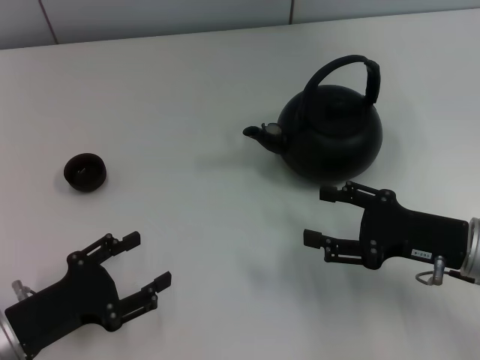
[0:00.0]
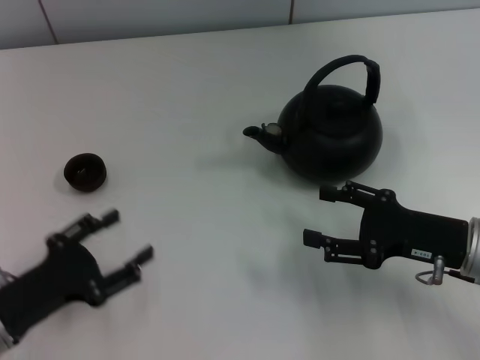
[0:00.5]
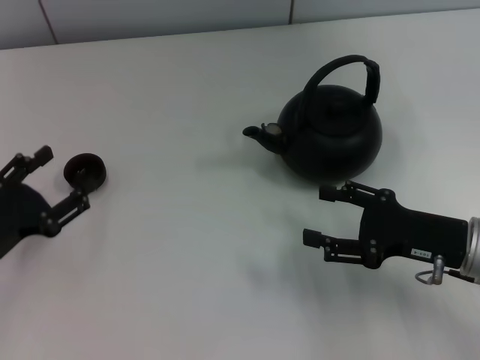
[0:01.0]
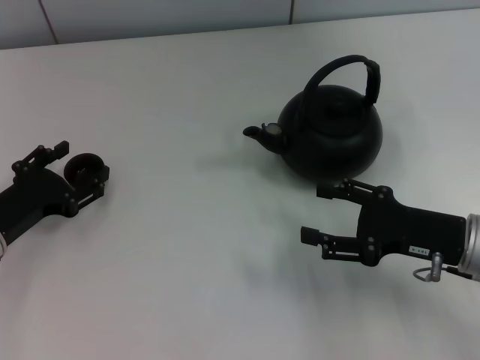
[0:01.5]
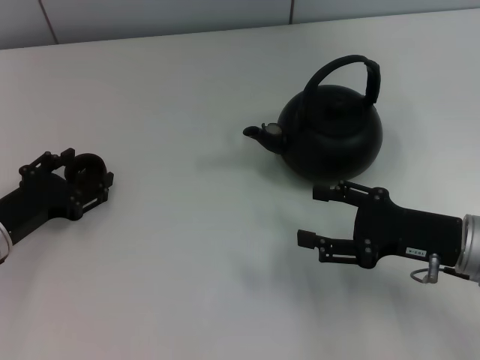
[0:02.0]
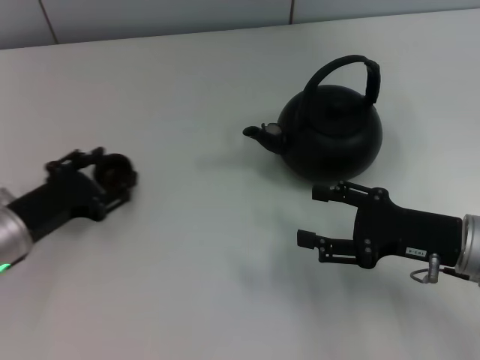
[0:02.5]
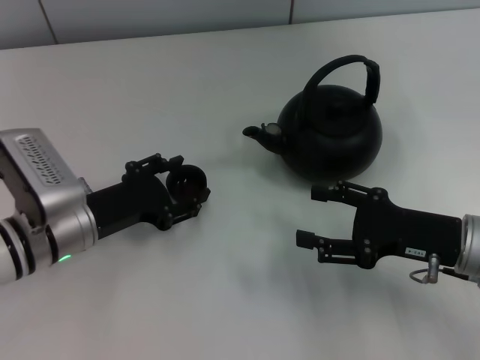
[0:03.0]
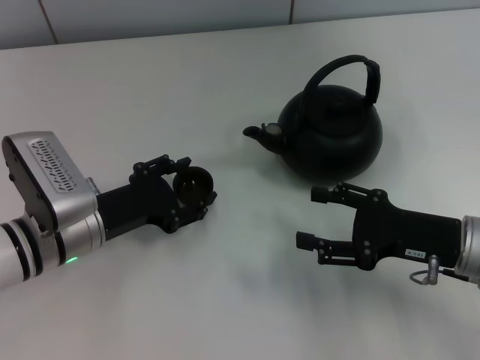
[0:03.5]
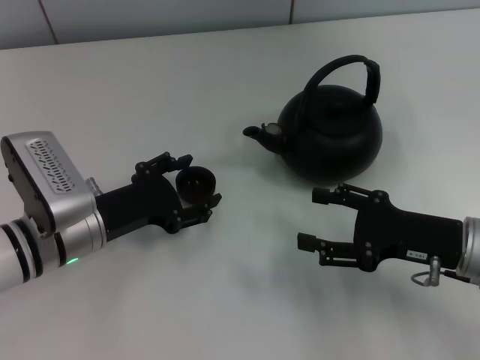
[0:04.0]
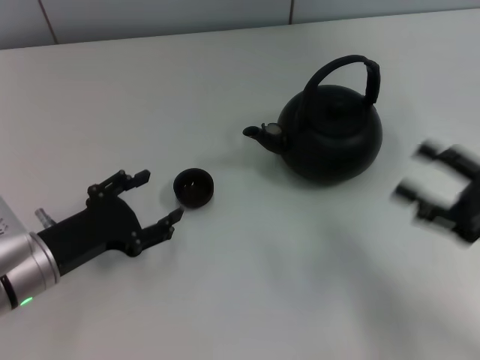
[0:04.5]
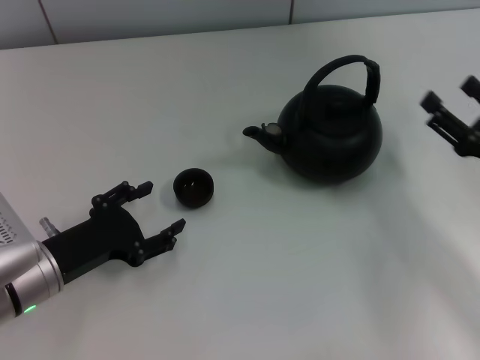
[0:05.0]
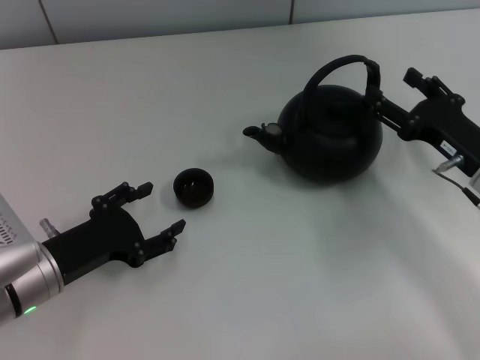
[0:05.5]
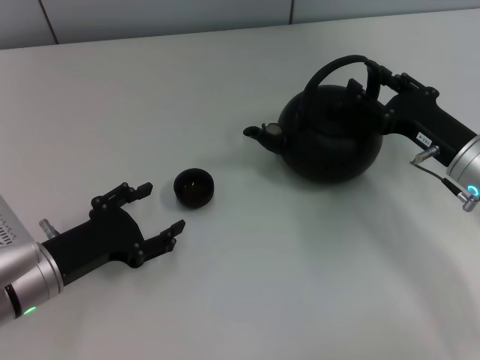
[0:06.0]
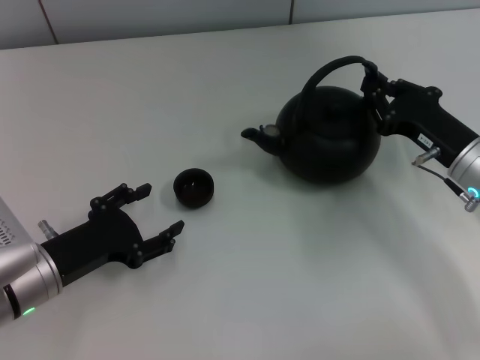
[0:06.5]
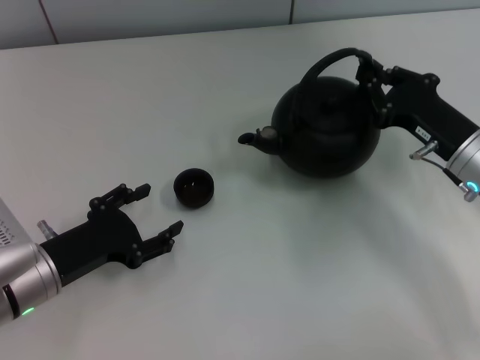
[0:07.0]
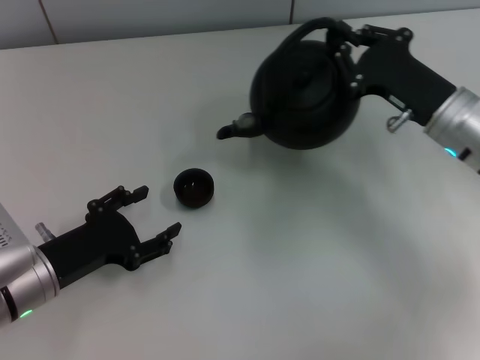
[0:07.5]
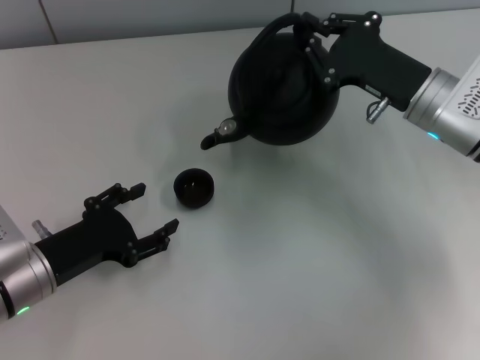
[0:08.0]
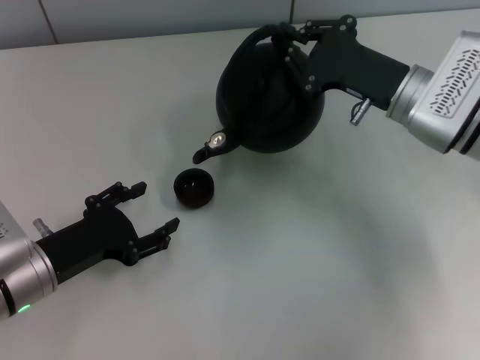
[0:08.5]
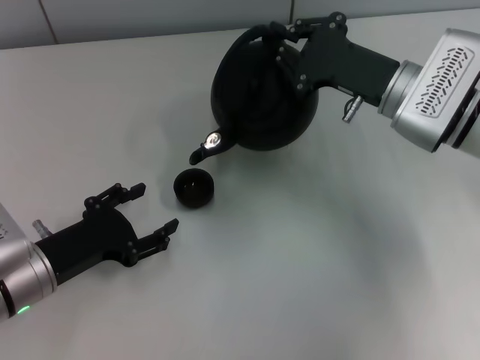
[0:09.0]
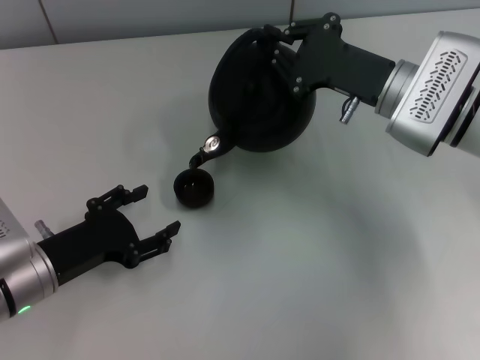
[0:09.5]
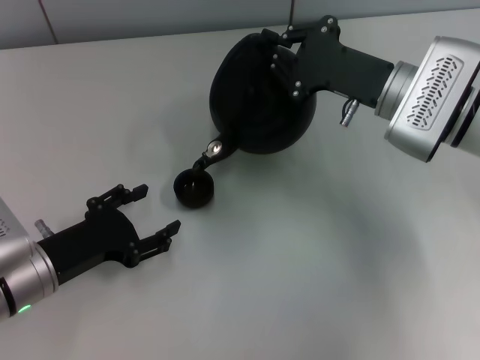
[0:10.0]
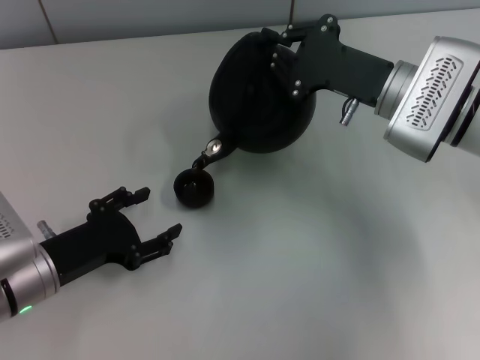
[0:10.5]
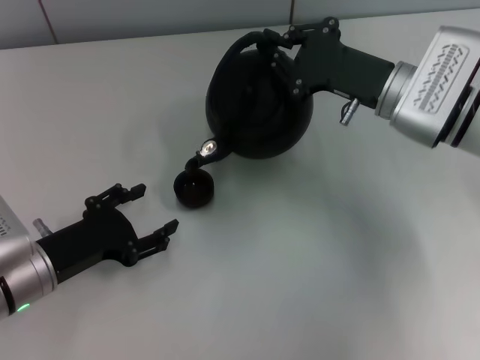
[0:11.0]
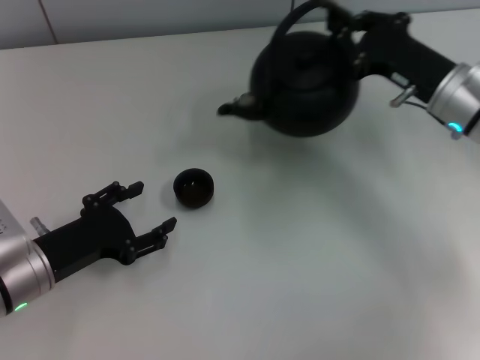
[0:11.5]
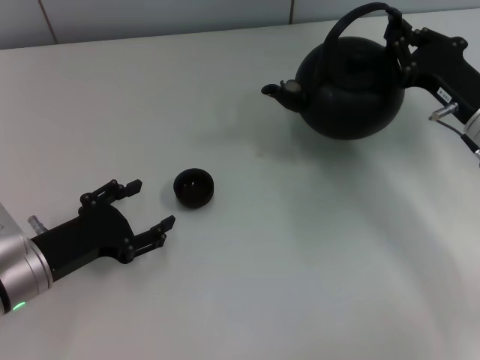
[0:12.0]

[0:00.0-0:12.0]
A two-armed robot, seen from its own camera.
Task of the whole recording: Grasp the handle of the teapot with one hand and pour tea into the teacup.
Step, 0:00.0 to 0:03.5: Pick up the teacup with the left gripper.
Step, 0:04.5 to 0:07.5: Pick up the teapot with the right gripper.
0:00.0 to 0:02.0: The left gripper goes approximately 10 cm forward.
0:02.0 to 0:04.0: The left gripper goes about 10 cm to the right.
0:04.0 to 0:06.0: The left gripper moves roughly 5 cm. The right gripper moves forward, roughly 5 cm.
0:06.0 to 0:08.0: The right gripper moves upward, about 5 cm, and closes its fingers.
0:08.0 to 0:10.0: The grippers stay close to where they were, moving slightly.
0:10.0 to 0:12.0: The right gripper heads to the right, covering some 10 cm.

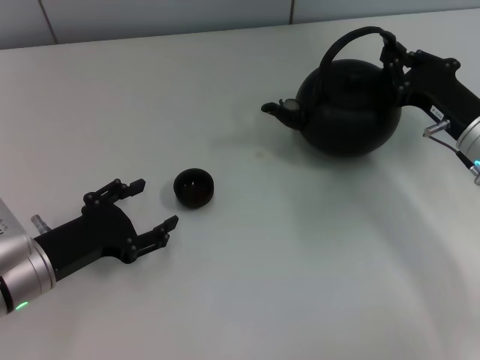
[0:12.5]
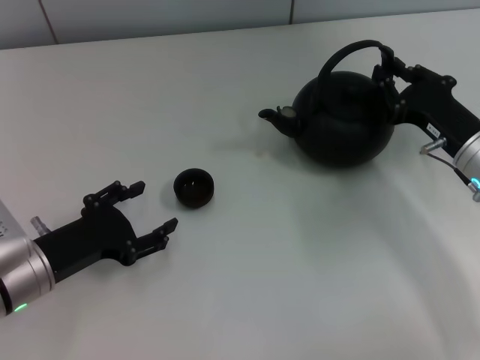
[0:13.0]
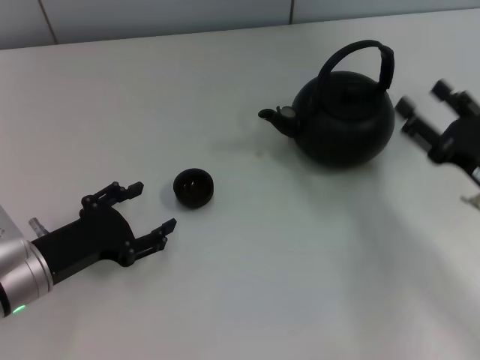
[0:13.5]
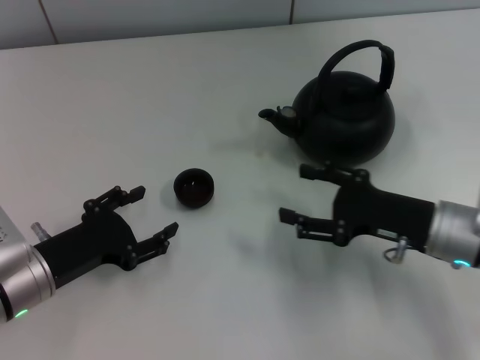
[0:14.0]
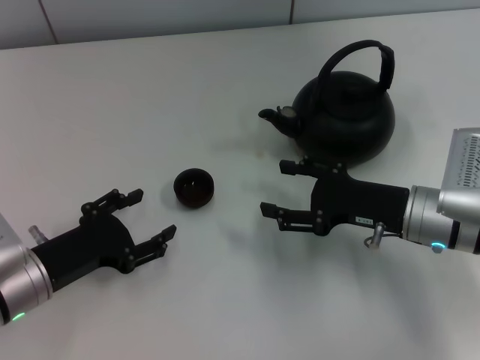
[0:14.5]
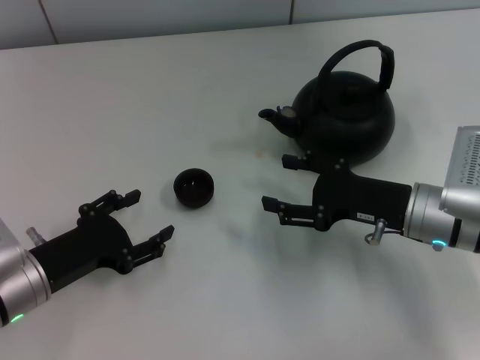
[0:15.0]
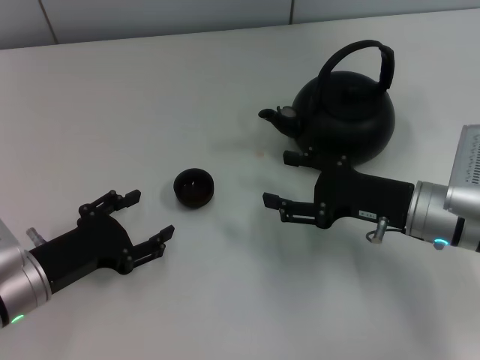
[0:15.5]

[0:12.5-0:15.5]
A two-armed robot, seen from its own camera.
Task of the whole recording: Grasp the handle of the teapot with one hand and pour tea into the teacup.
0:12.5 to 0:14.0: The right gripper travels backward by about 5 cm, and opens its fingers.
0:14.0 to 0:15.5: The grippers make only small movements.

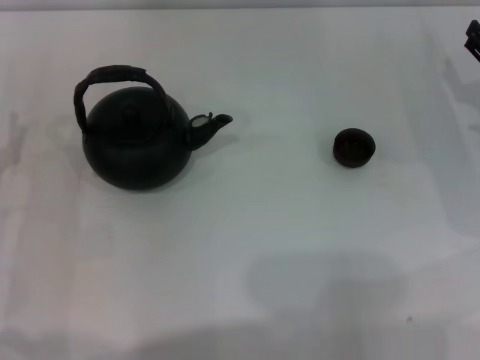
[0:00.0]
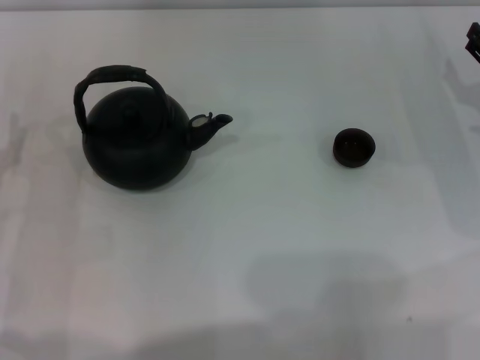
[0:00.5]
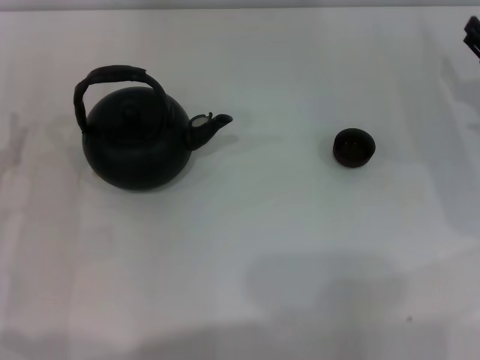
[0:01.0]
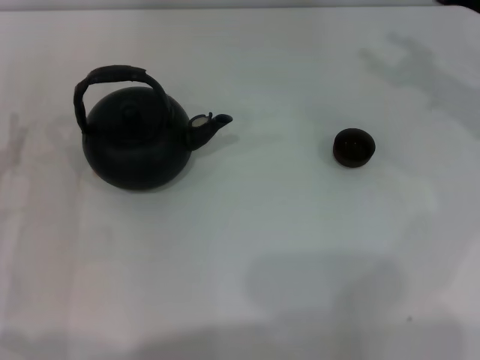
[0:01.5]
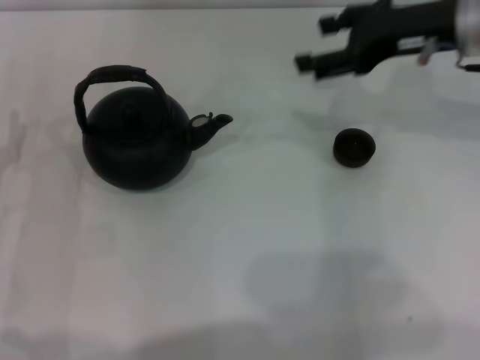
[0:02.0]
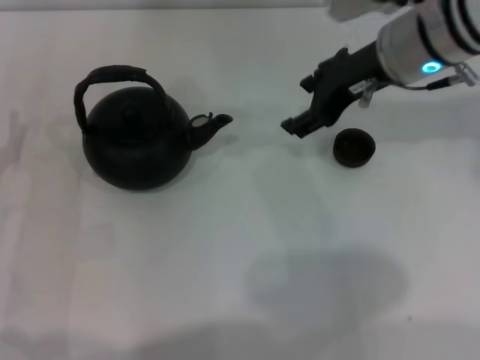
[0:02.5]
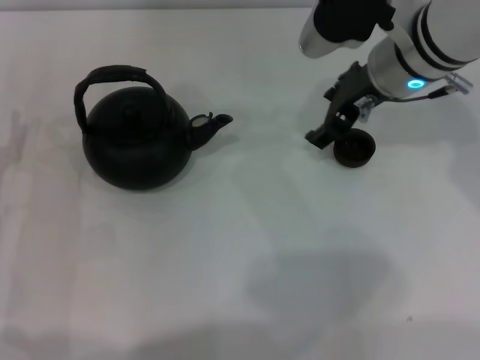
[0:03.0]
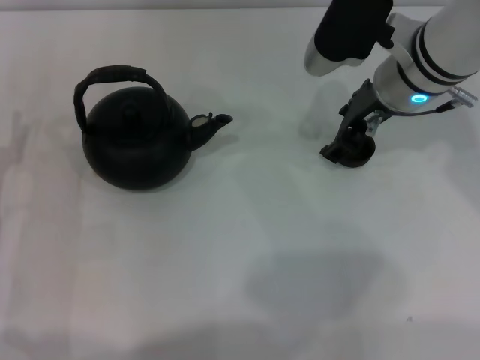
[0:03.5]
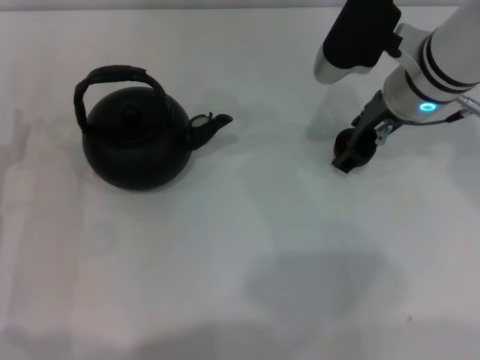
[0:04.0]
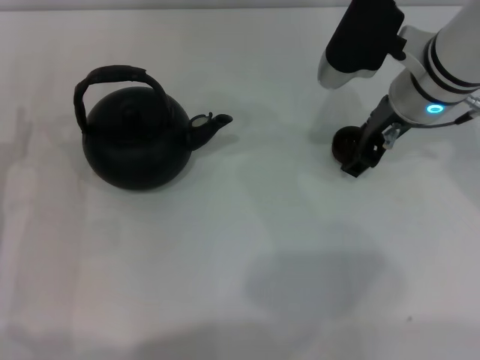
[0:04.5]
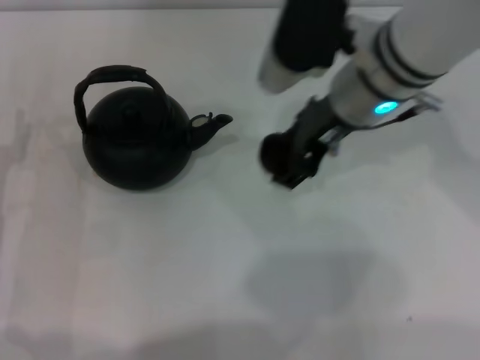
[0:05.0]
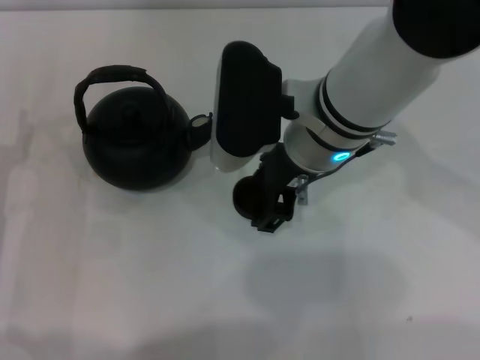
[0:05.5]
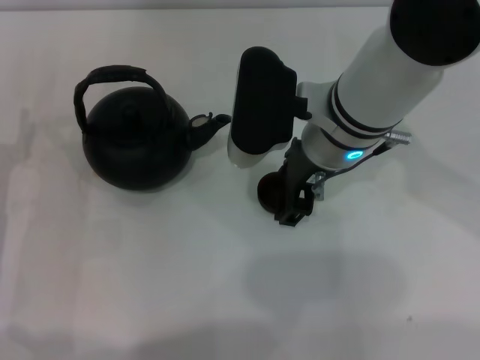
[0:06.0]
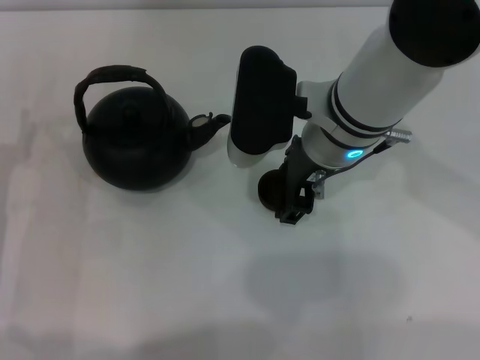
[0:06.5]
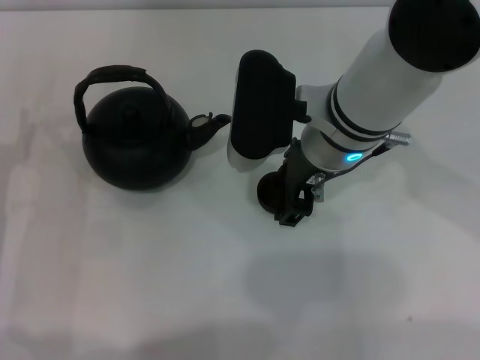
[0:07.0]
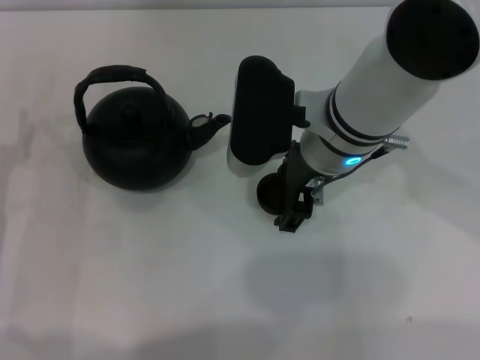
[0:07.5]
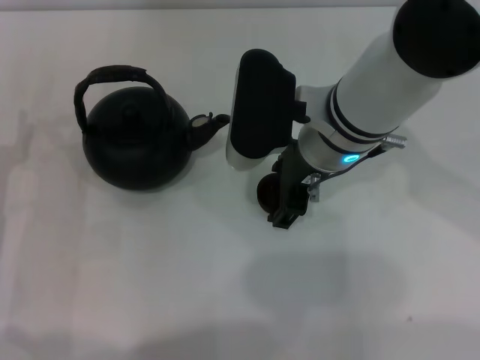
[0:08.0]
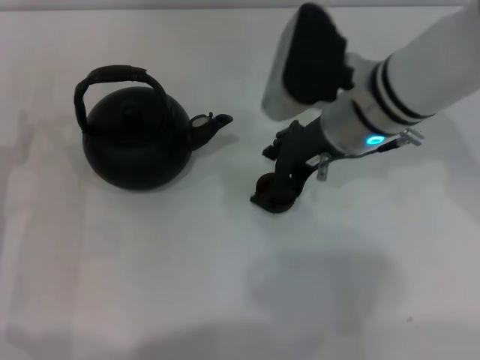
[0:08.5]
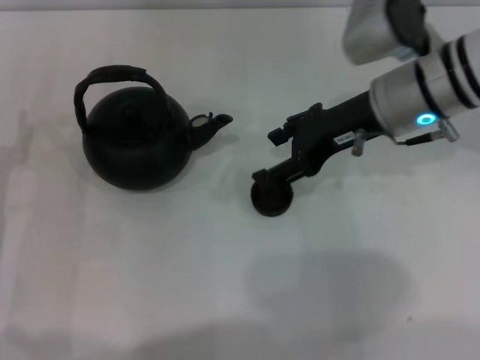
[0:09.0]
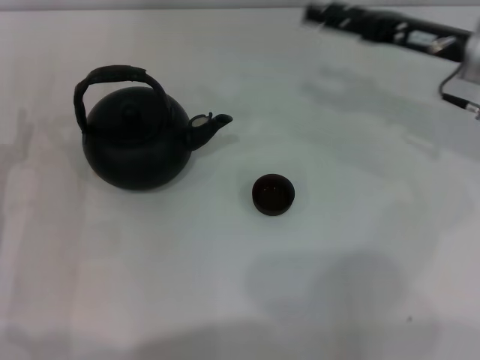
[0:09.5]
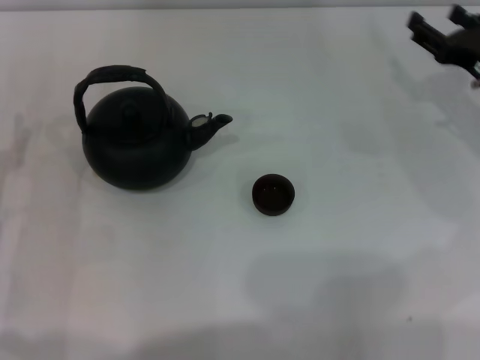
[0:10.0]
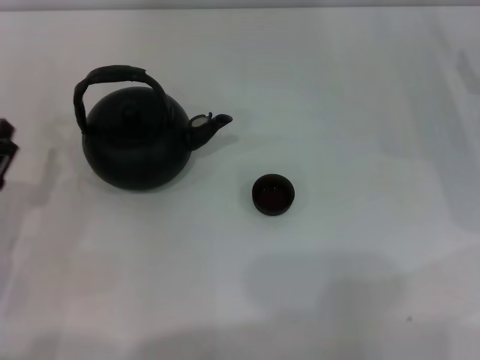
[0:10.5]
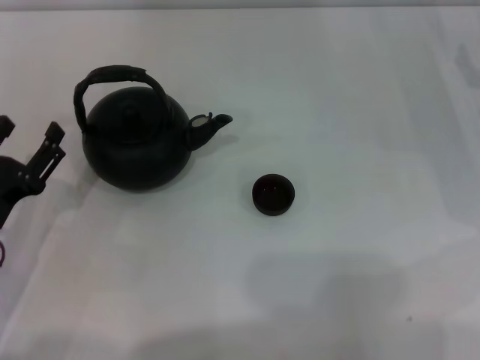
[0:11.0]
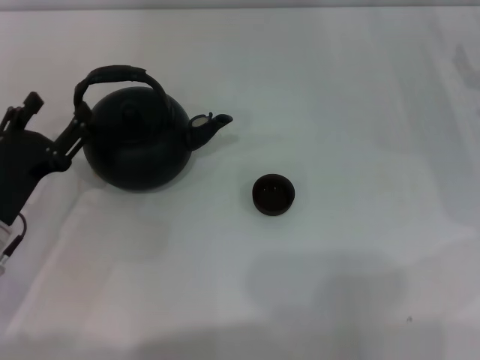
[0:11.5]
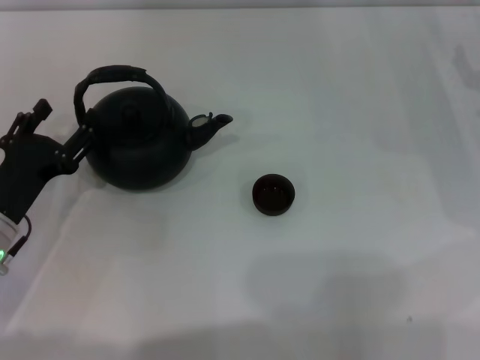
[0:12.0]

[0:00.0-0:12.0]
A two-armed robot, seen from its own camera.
Task of the whole recording: Grasp the handle of the teapot with one hand and pour tea into the teacup.
Step, 0:00.0 to 0:05.0: Pick up the teacup with the right gripper.
Step, 0:05.5 to 0:08.0: Place the teacup in the center of view with the right gripper.
0:00.0 to 0:02.0: The right gripper travels upward and to the left by approximately 20 cm.
0:02.0 to 0:04.0: The right gripper heads to the left and downward, covering about 10 cm, and closes up.
0:04.0 to 0:06.0: The right gripper moves to the left, about 10 cm.
0:06.0 to 0:08.0: The right gripper opens.
0:08.0 to 0:10.0: The right gripper moves to the right, some 25 cm.
